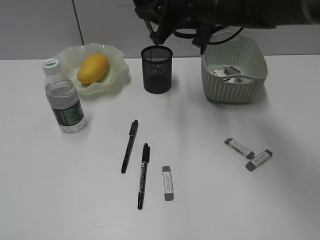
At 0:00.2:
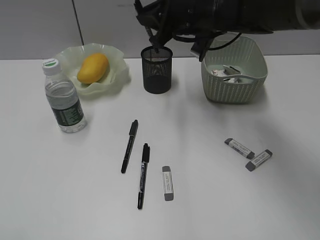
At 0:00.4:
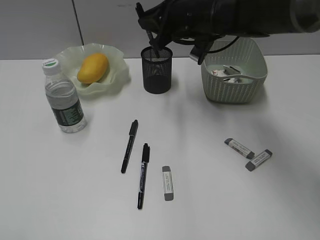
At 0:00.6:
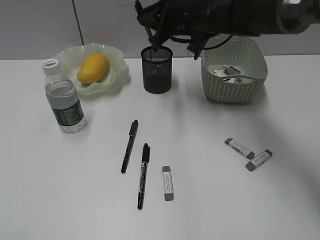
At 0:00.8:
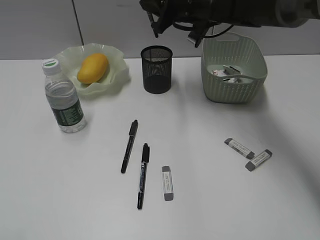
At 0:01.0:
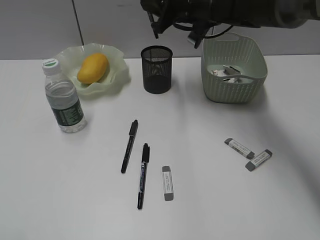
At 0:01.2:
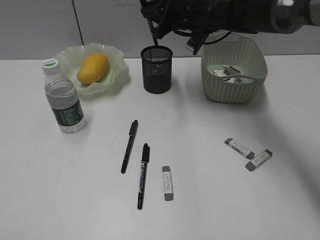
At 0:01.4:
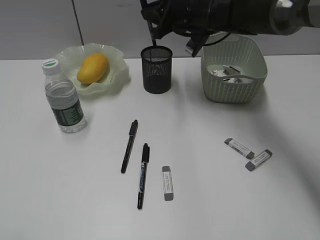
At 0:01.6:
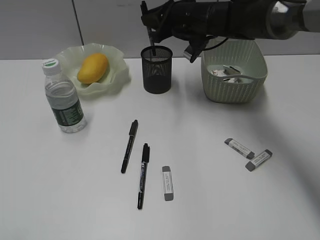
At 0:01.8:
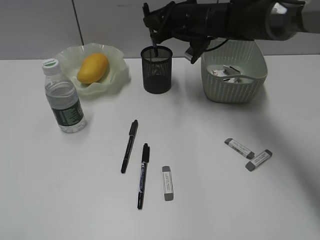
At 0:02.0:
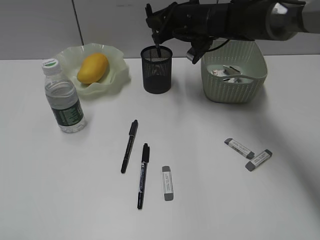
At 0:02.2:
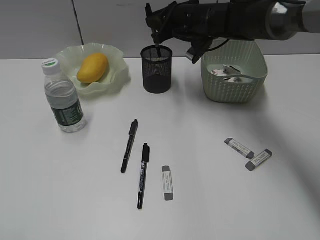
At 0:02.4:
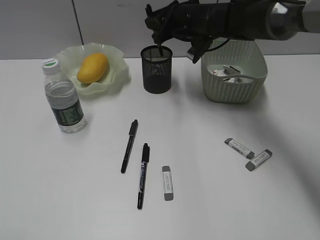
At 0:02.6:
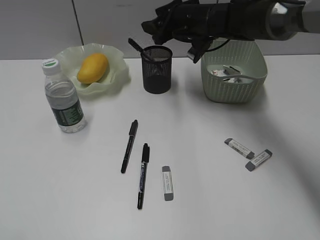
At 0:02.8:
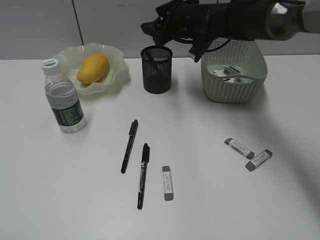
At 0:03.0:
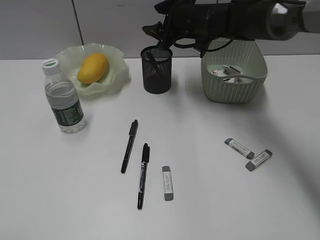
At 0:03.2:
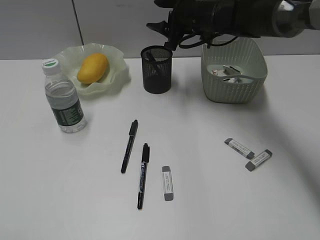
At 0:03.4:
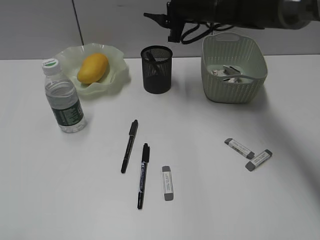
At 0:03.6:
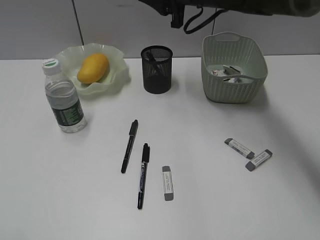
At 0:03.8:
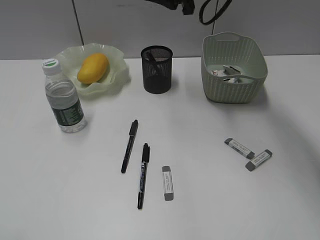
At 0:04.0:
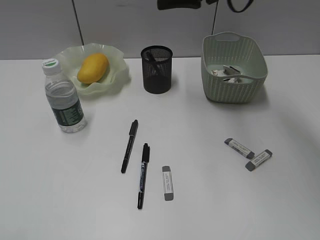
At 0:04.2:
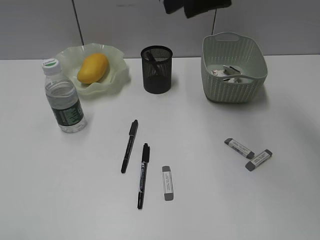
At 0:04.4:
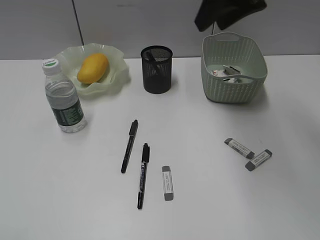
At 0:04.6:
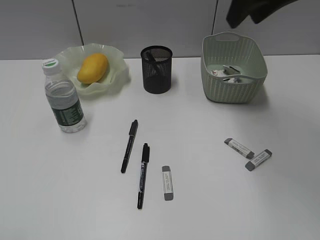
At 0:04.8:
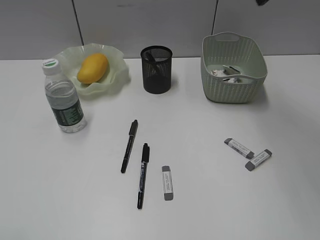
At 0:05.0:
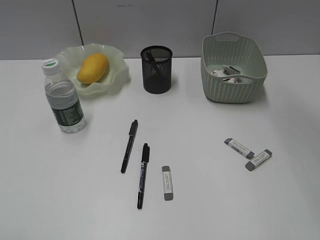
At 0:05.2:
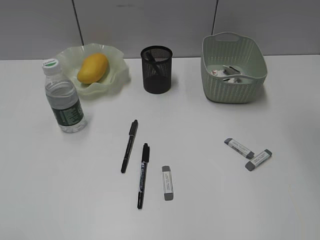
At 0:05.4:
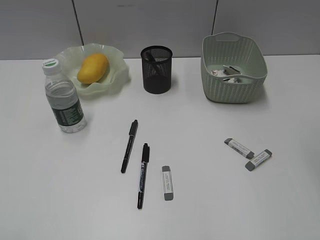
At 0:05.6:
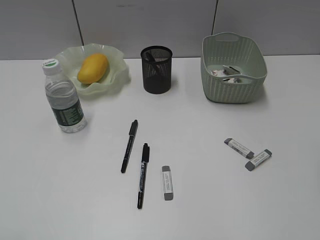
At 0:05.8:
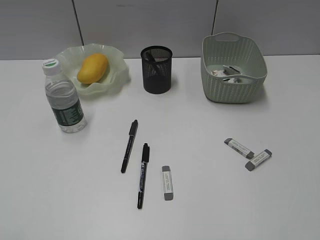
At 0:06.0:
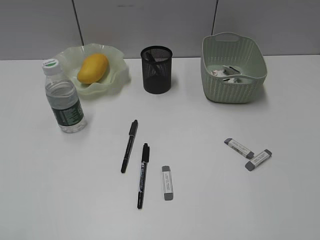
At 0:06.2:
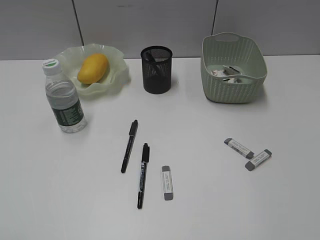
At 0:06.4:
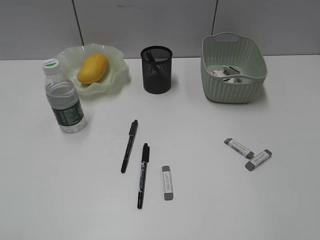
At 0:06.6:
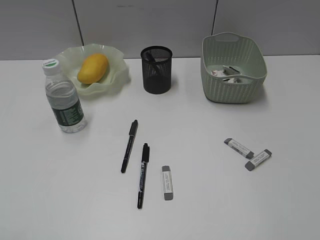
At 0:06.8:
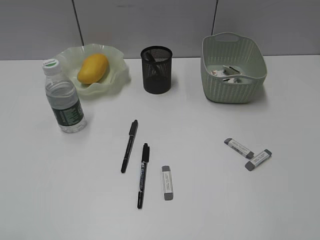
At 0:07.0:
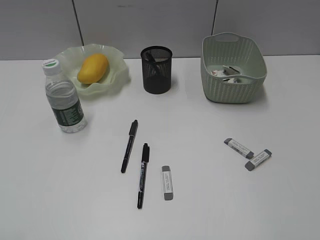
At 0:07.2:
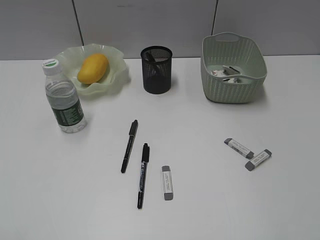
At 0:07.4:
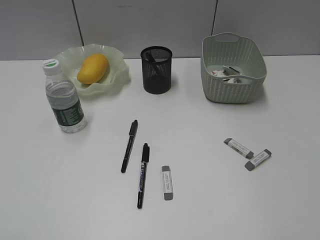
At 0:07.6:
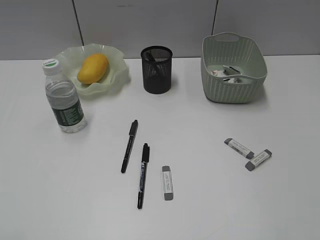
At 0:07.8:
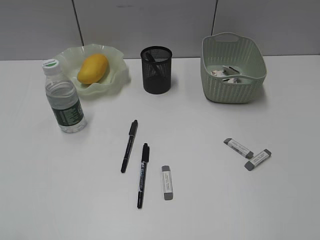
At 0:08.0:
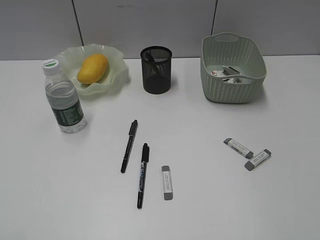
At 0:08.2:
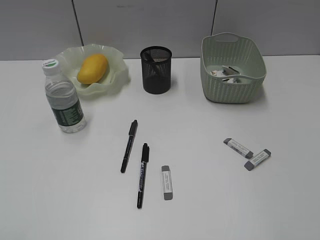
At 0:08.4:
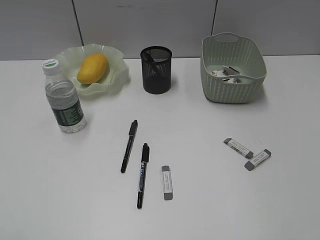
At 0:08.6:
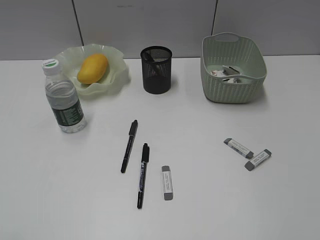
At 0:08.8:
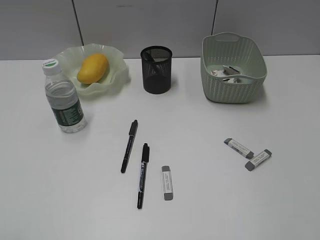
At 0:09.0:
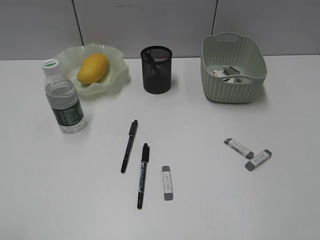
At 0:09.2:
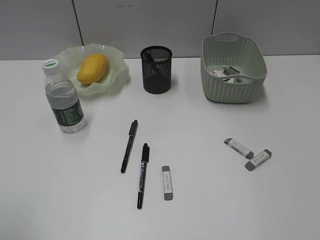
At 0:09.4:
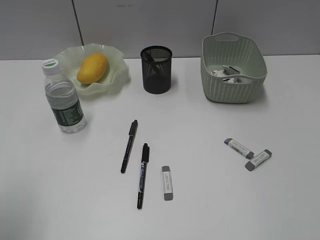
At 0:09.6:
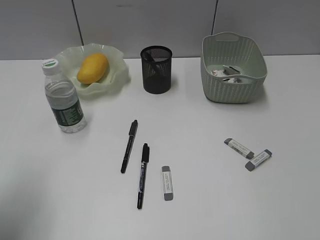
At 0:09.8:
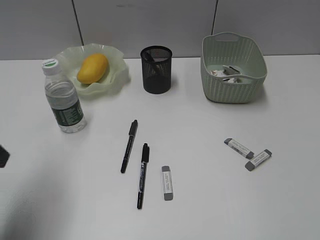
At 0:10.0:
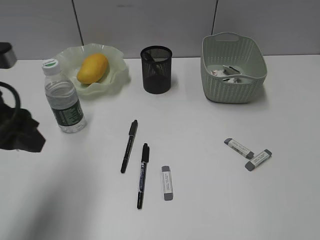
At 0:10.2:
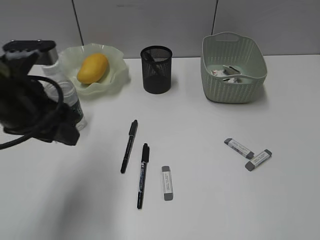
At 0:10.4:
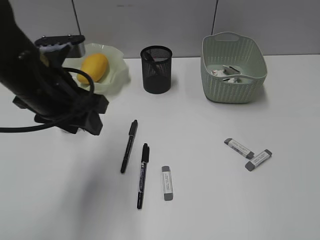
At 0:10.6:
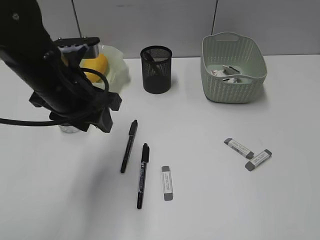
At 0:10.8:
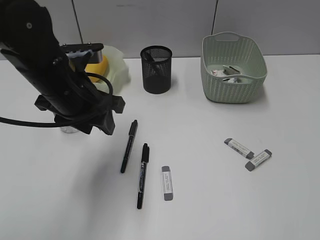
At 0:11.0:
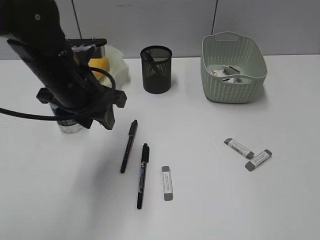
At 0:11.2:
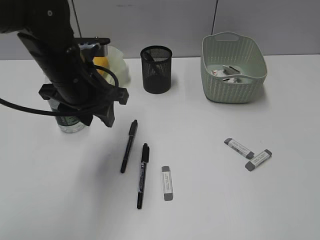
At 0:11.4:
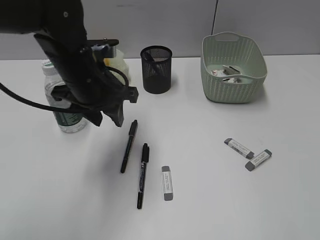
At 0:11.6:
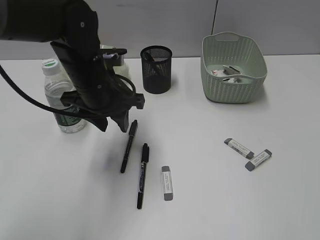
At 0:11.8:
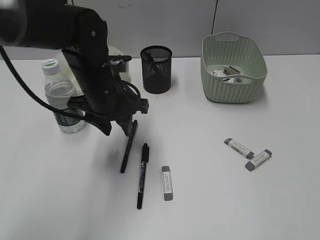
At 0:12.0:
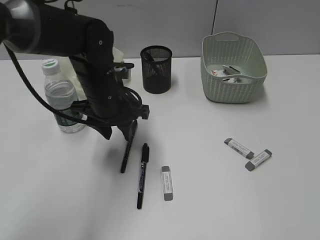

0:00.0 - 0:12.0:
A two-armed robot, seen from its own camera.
Step, 0:00.0 - 0:02.6: Place the black pen in pen holder with right gripper.
0:00.0 - 0:01.6: The right gripper heads forward, covering about 5 cm.
0:01.6 - 0:03.0: The right gripper opens its fingers.
0:03.0 - 0:04.4: The right gripper heads upward and backward, covering some 20 cm.
0:04.4 - 0:06.0: The right gripper shifts some 30 cm backward and to the right.
0:09.0 - 0:10.4: The left gripper travels forward and to the right by some 30 cm.
0:10.4 - 0:12.0: The left gripper heads forward, downward and to the right, covering approximately 10 cm.

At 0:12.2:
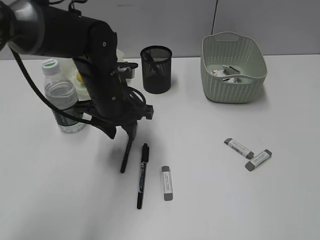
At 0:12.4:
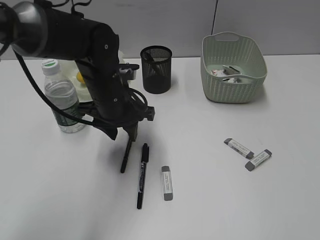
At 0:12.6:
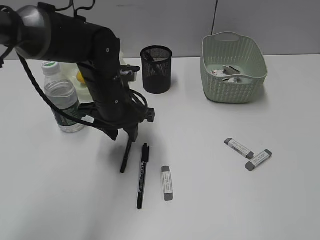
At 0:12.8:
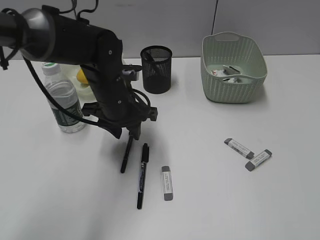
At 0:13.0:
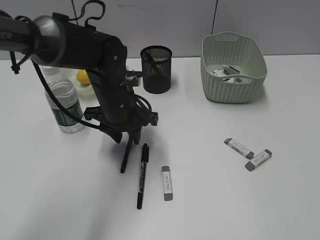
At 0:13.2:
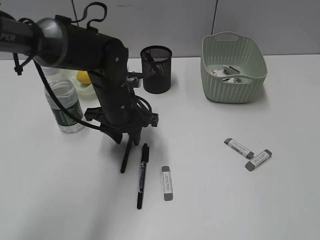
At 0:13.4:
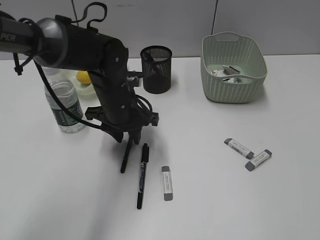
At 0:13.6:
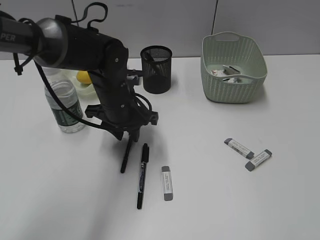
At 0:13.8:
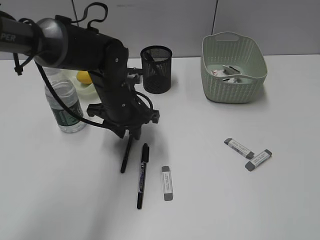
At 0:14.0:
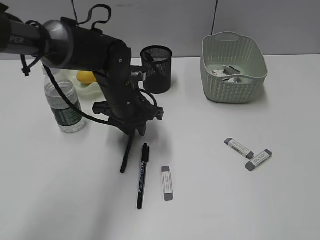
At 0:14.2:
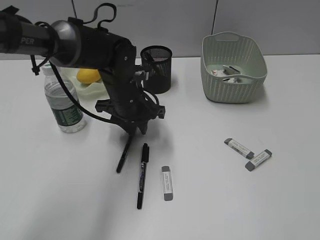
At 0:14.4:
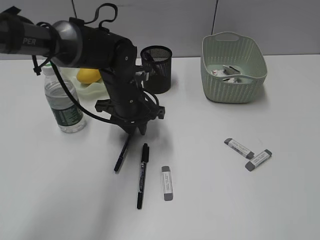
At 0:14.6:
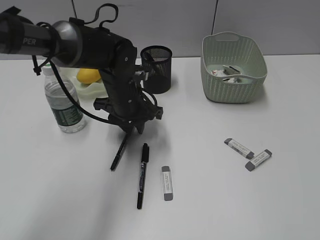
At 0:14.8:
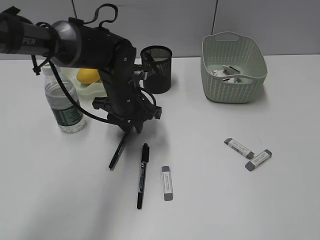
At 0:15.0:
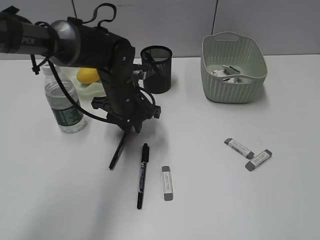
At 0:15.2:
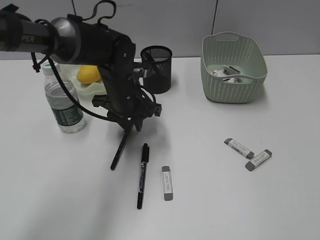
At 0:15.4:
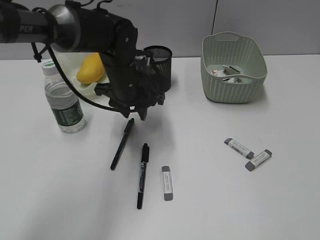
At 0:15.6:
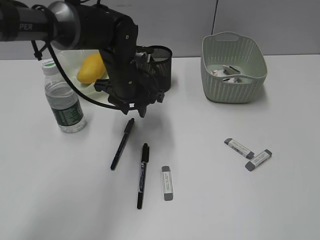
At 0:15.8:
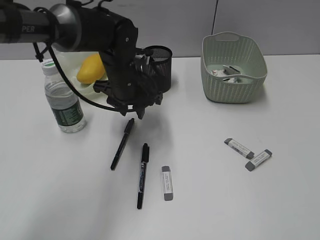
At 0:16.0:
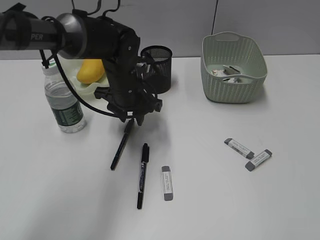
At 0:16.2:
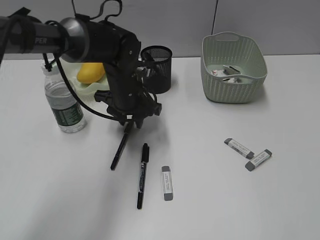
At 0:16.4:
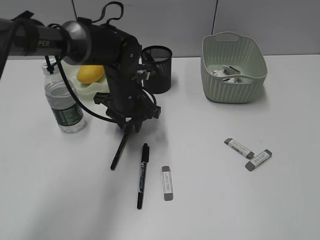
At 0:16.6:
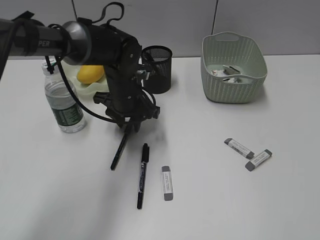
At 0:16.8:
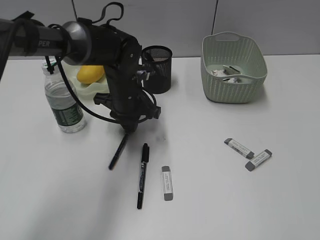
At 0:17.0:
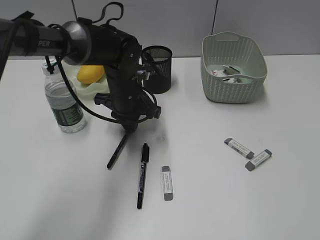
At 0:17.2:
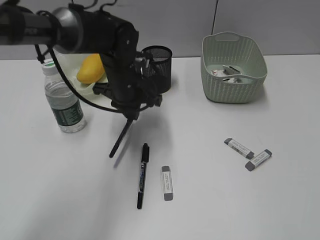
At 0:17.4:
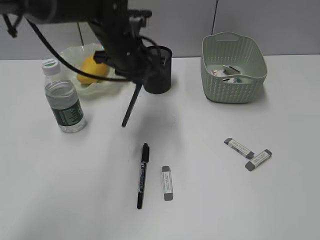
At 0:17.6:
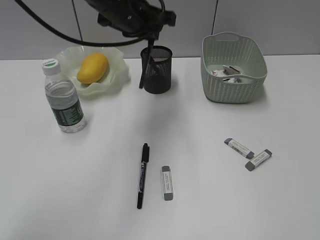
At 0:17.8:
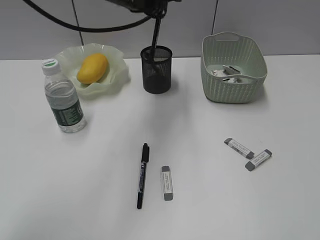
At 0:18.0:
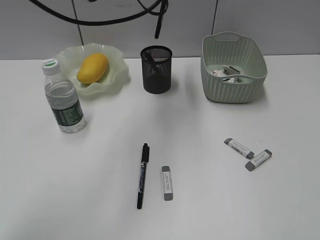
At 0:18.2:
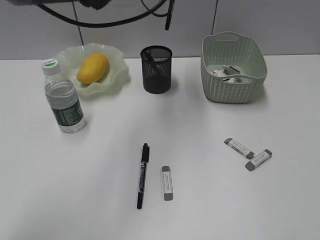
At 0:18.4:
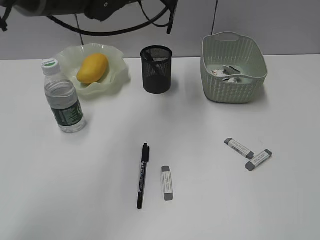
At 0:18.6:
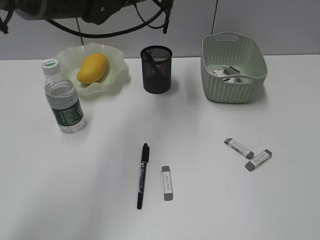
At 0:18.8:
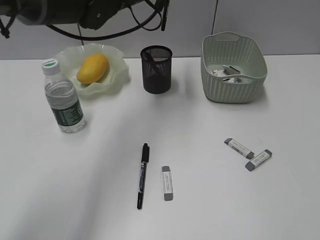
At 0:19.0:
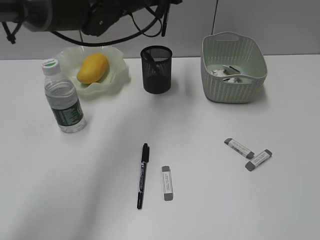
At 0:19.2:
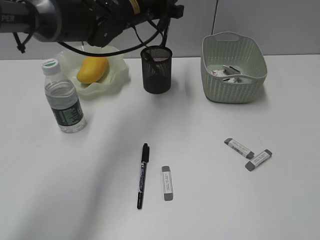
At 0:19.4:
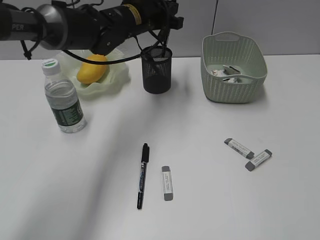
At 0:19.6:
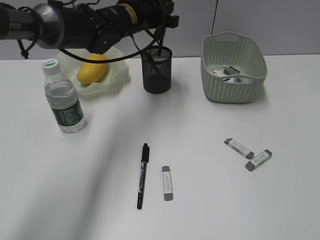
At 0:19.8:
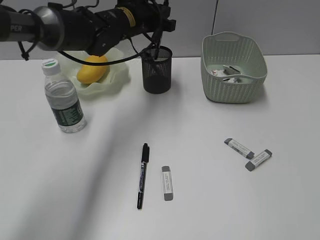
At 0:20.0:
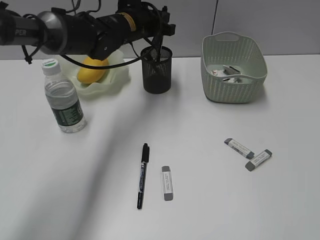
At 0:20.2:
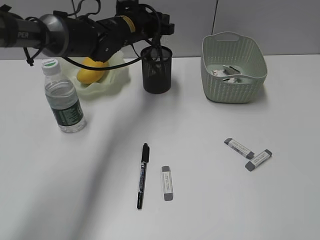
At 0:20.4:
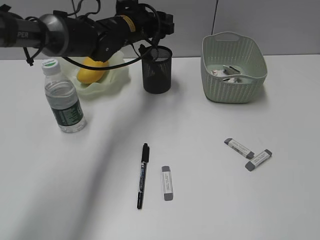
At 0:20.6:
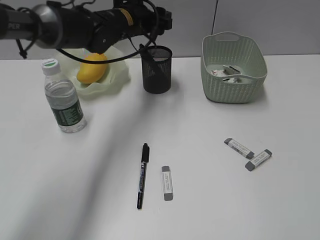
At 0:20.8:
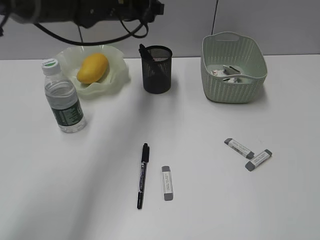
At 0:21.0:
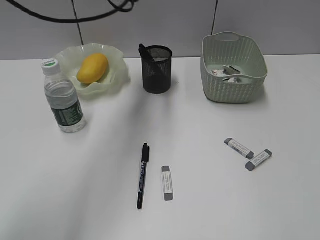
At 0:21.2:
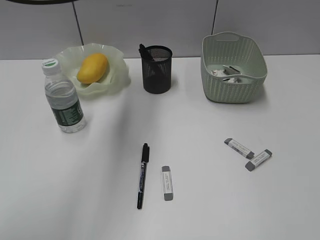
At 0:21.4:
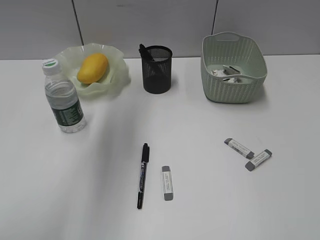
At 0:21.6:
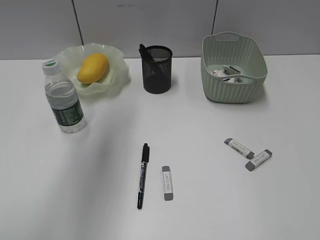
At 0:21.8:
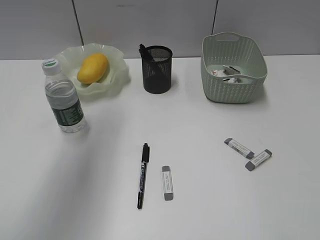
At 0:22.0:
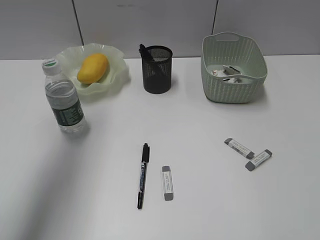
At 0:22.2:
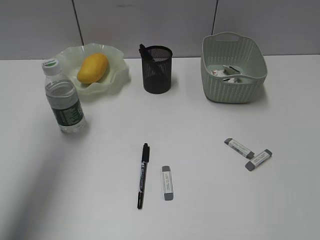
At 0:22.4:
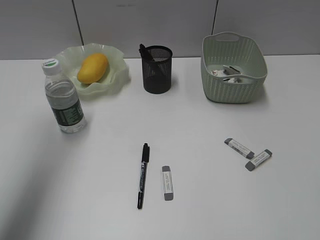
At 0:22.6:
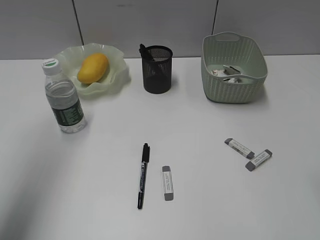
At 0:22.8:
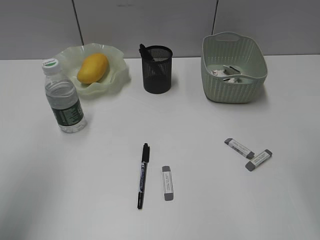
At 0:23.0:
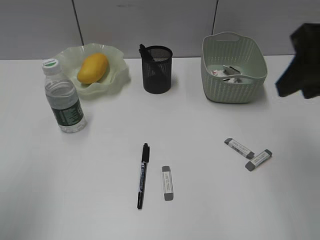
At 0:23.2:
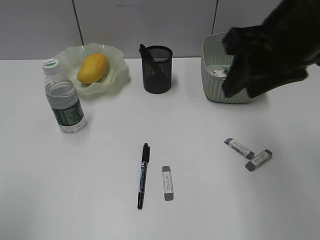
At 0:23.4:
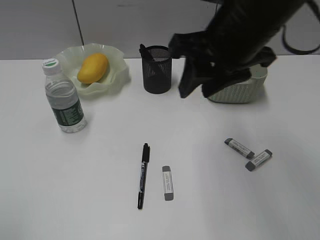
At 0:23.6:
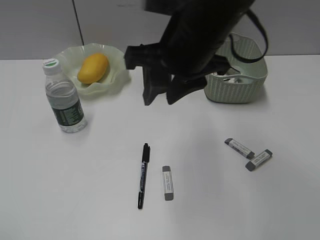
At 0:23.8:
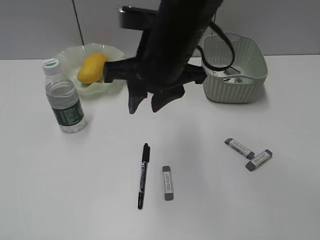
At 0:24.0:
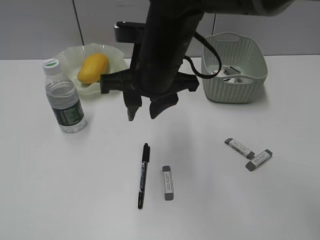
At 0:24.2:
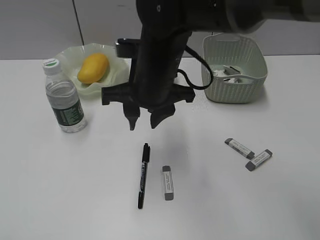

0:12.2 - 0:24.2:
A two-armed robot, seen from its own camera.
Step, 0:12.2 - 0:17.0: Grasp the black pen with left gripper.
Step, 0:17.2 - 0:20.4: Place the black pen in pen holder with left gripper.
0:12.2 - 0:15.2: The grippers stay close to where they were, moving slightly.
0:15.2 - 0:16.6: The grippers stay close to where they were, moving slightly.
0:16.6 - 0:18.2: The left gripper shifts some 20 cm upward, and closes up.
0:18.2 - 0:19.8: The left gripper is displaced downward and forward by approximately 10 cm.
0:19.8 - 0:21.2: The left gripper goes approximately 15 cm upward, to the left and backward, and opens up.
0:21.2 - 0:22.6: The left gripper heads backward and to the left, covering approximately 25 cm, while the right gripper is displaced forward and upward by some 20 cm.
0:22.6 - 0:24.2: The left gripper is displaced backward and downward by roughly 25 cm, while the right gripper moves to the left, forward and downward, about 35 cm.
